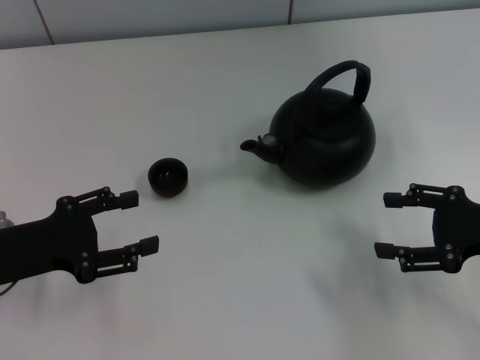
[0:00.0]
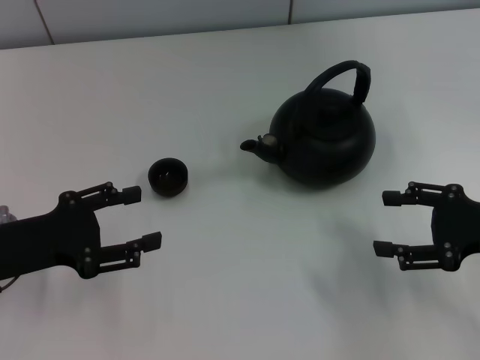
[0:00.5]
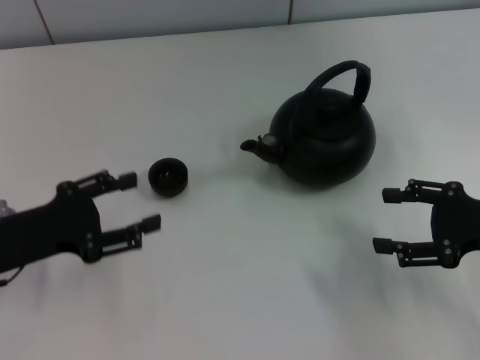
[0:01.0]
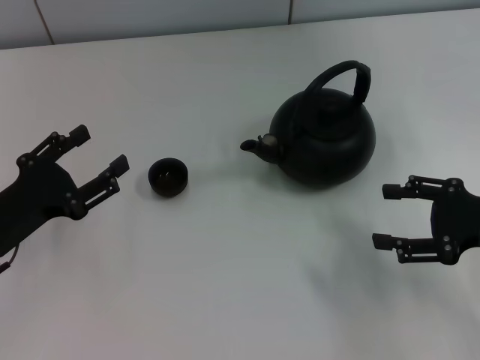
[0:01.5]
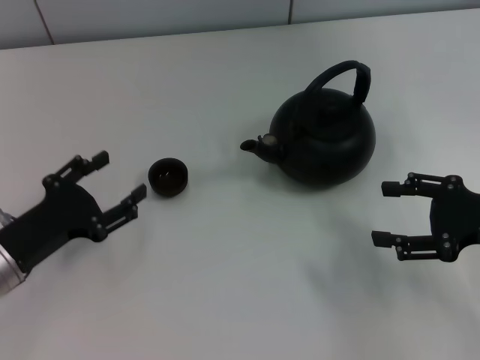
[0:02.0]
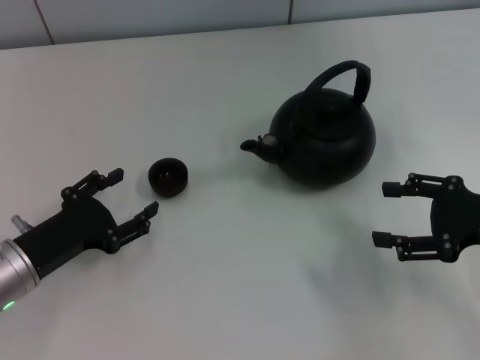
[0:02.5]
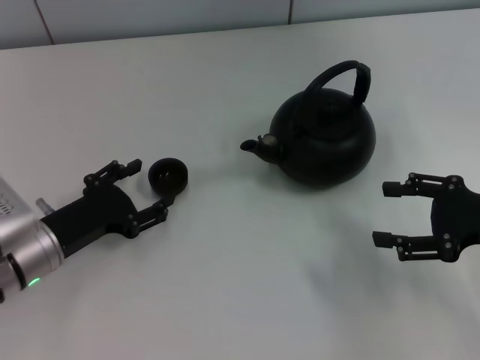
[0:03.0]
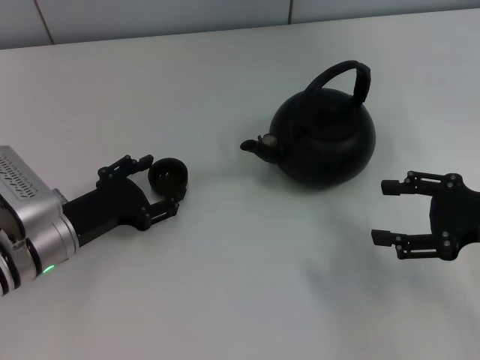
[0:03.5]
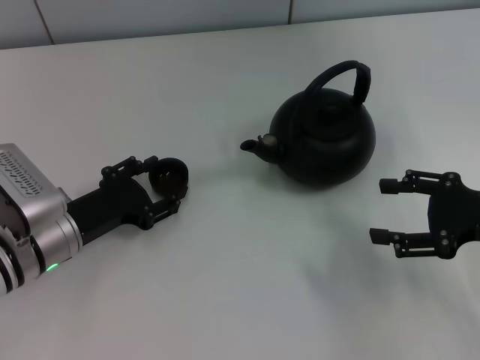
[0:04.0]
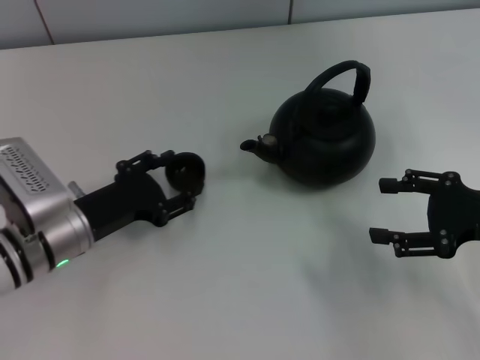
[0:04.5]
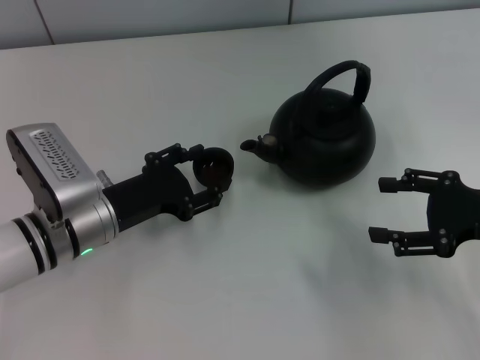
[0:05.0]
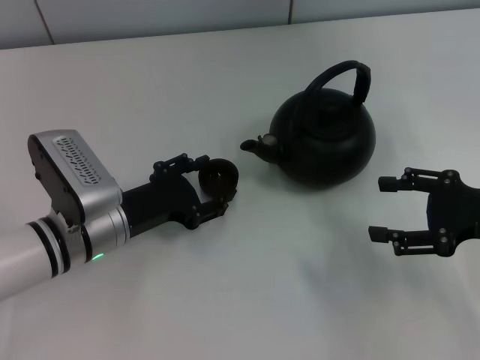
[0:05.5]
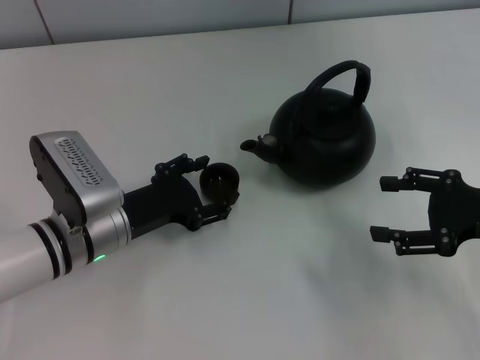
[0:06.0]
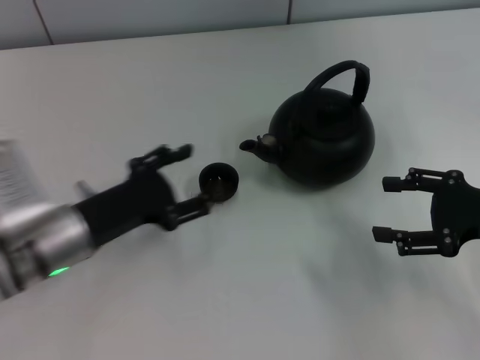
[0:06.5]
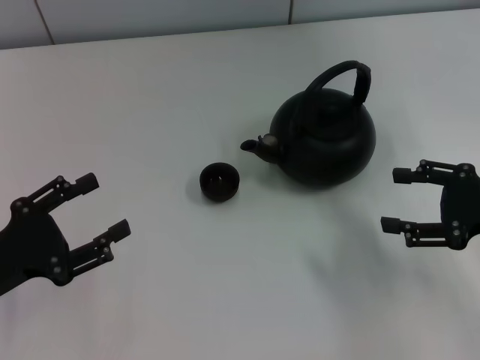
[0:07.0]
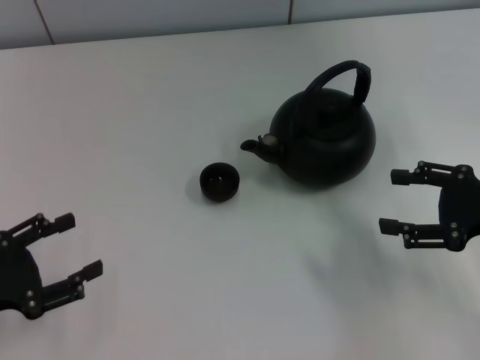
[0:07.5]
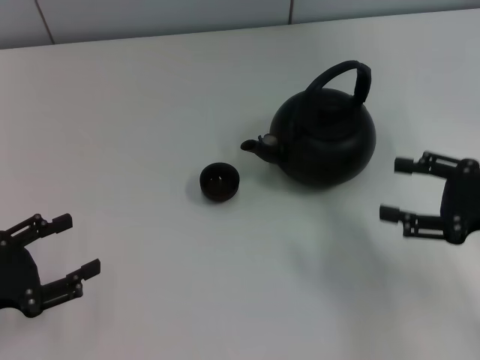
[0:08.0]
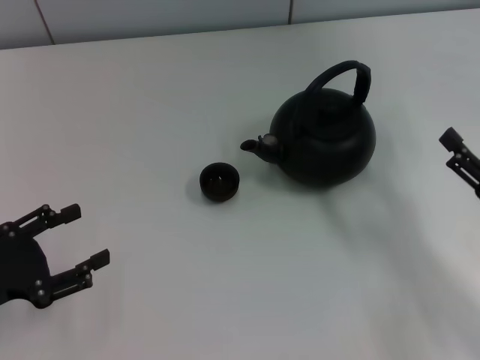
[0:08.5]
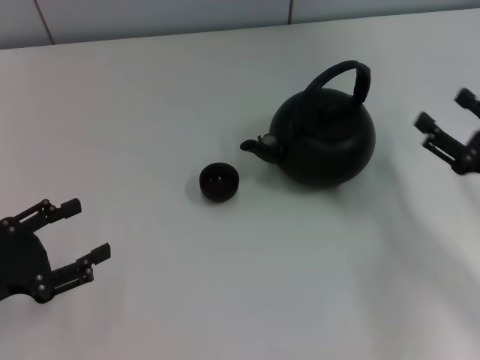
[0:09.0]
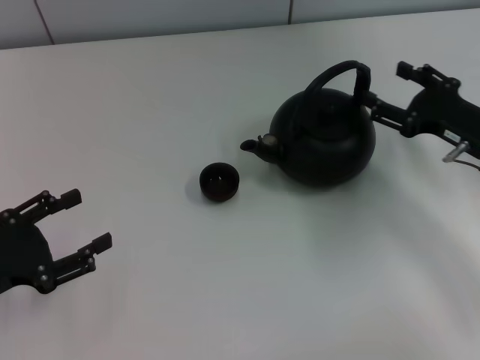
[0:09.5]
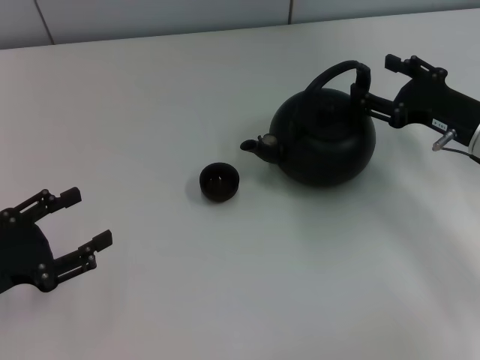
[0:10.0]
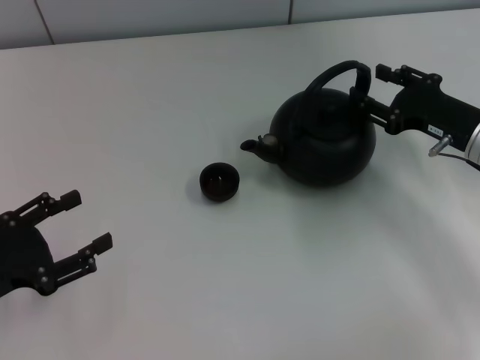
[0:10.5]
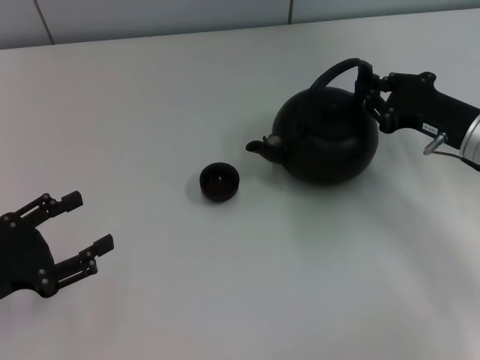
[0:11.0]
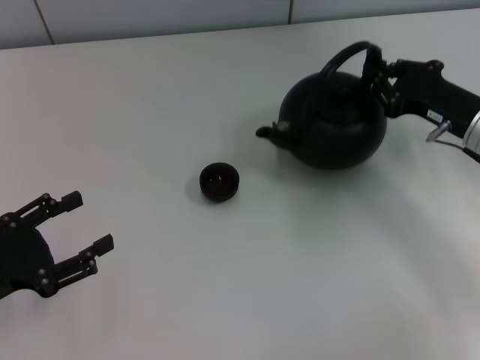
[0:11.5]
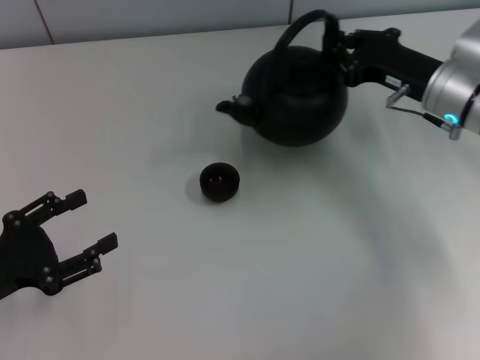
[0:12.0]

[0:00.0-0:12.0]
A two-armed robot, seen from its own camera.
Task of the whole recording: Grasp the handle of the teapot with one hand and pour tea into the teacup.
Step, 0:00.0 to 0:04.5: Pick up the teacup with the left gripper.
Step, 0:05.0 to 0:06.0: Place the teacup in the center of view with the left gripper.
Step, 0:07.0 to 0:11.0: Pick up the teapot with the right gripper.
0:00.0 to 0:02.0: The left gripper shifts by roughly 5 cm.
0:02.0 to 0:04.0: The left gripper shifts by about 5 cm.
0:04.0 to 0:06.0: There are only small adjustments of the grippers.
0:06.0 to 0:08.0: The left gripper goes approximately 20 cm to the left and backward.
0:08.0 to 0:10.0: The right gripper moves forward, about 10 cm.
0:10.0 to 0:12.0: The right gripper ends up about 5 cm from where it was, and closes its fingers.

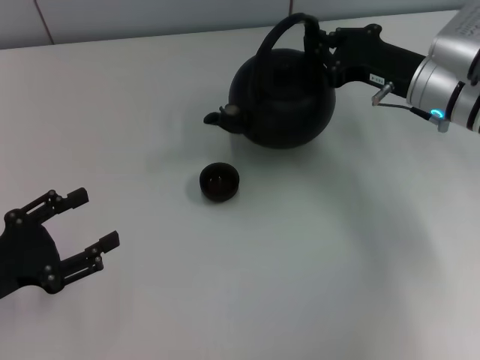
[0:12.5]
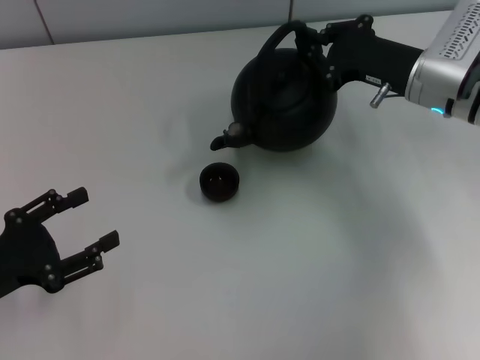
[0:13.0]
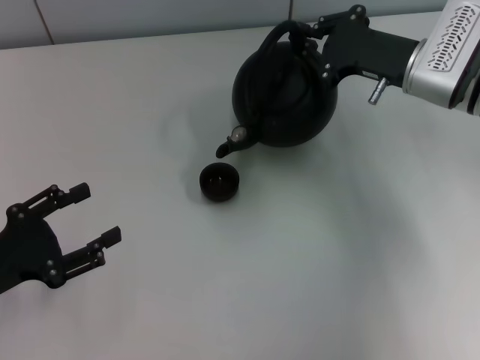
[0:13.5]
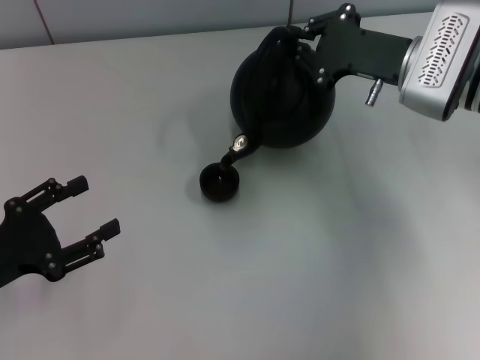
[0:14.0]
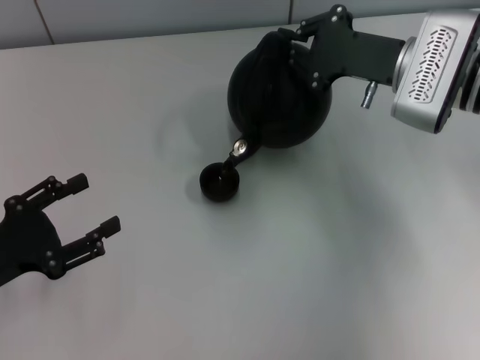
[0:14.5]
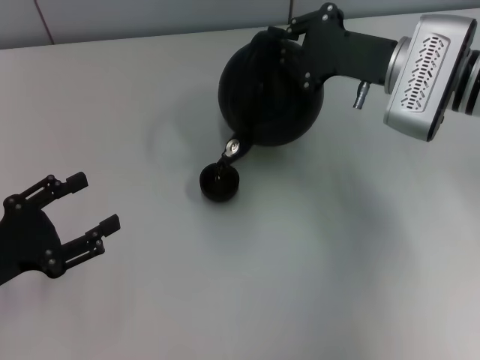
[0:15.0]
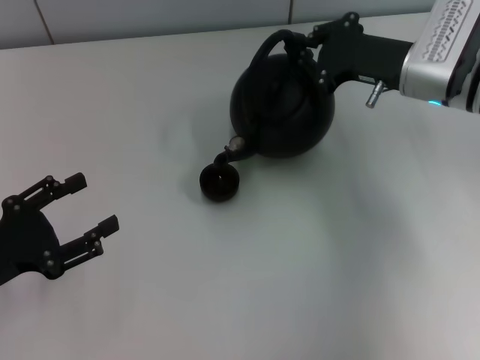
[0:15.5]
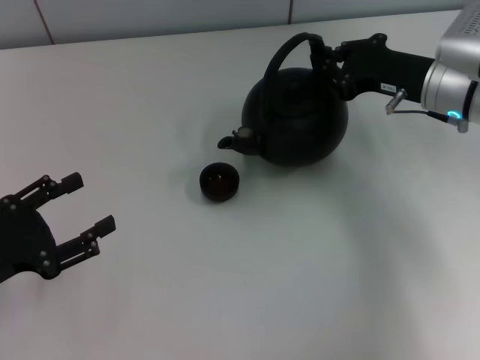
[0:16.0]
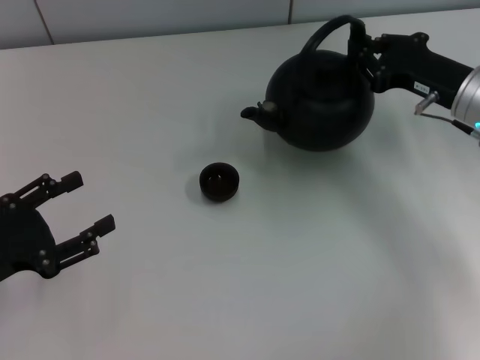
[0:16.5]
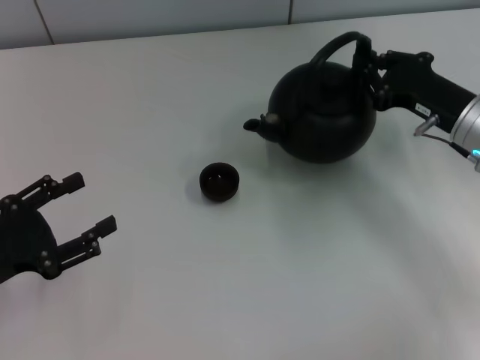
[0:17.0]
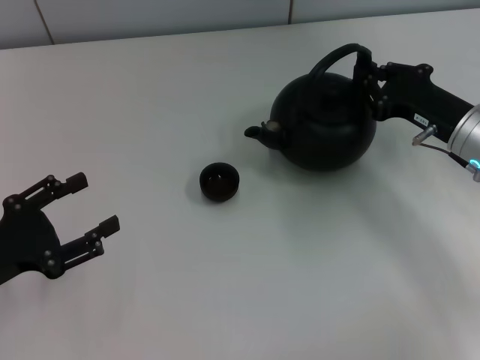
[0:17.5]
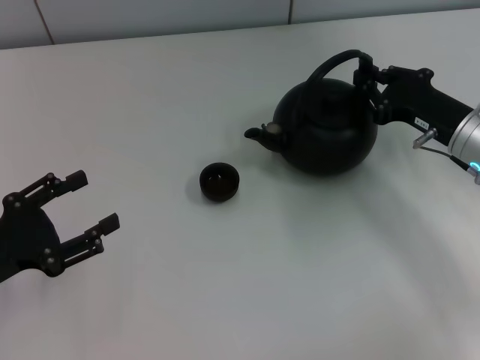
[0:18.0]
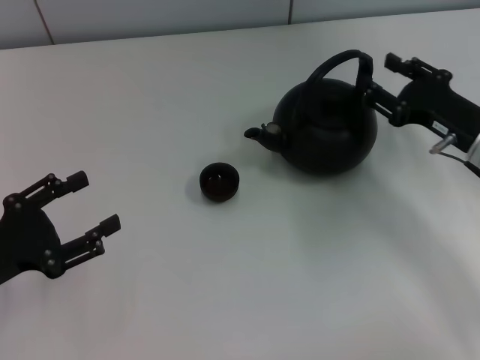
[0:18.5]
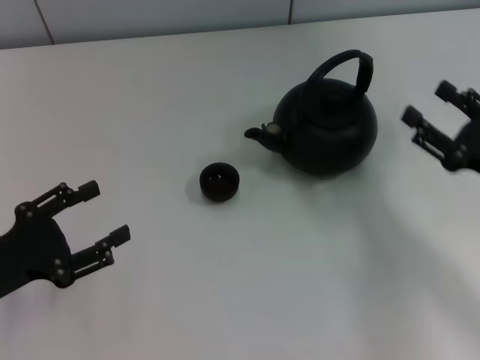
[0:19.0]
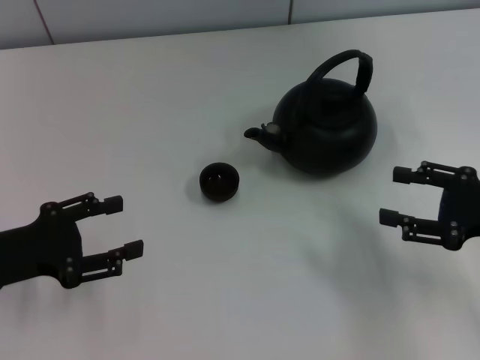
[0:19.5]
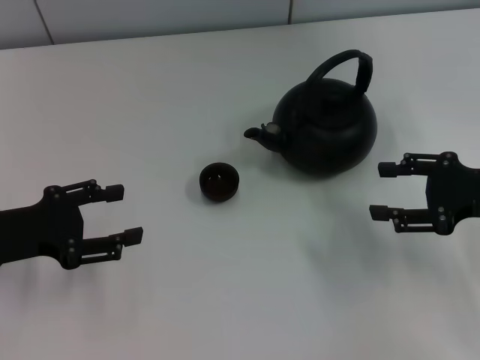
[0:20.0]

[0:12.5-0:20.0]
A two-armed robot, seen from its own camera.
Task of the whole recording: Grasp the handle of the teapot with one hand and pour tea into the teacup.
Step, 0:16.0 to 0:18.5: Put down the teapot with the right gripper.
0:14.5 to 0:16.5: The right gripper shifts about 5 cm to the right.
0:16.5 to 0:18.0: The grippers make only small movements.
0:18.0 to 0:20.0: The left gripper is displaced forward by about 5 cm, while the right gripper heads backward, covering about 5 cm, and opens its fingers.

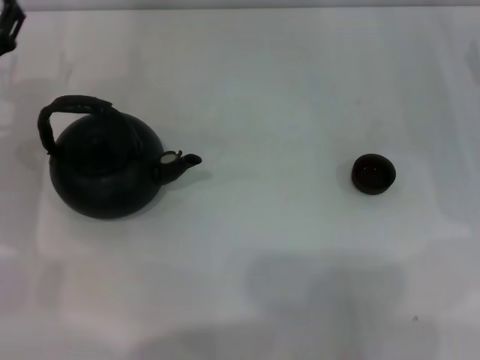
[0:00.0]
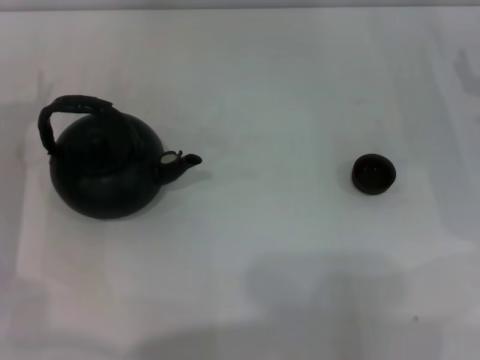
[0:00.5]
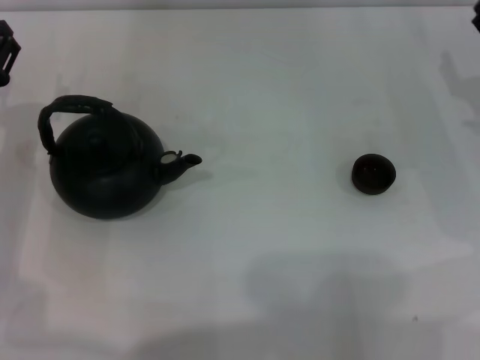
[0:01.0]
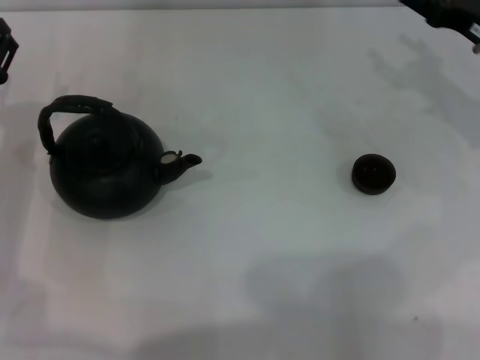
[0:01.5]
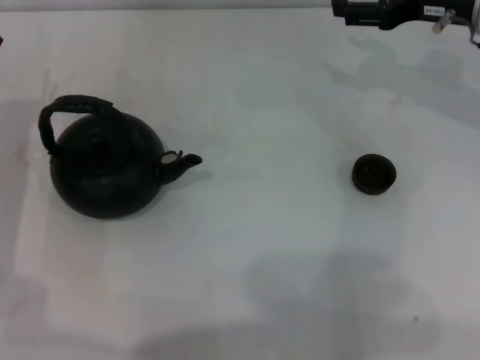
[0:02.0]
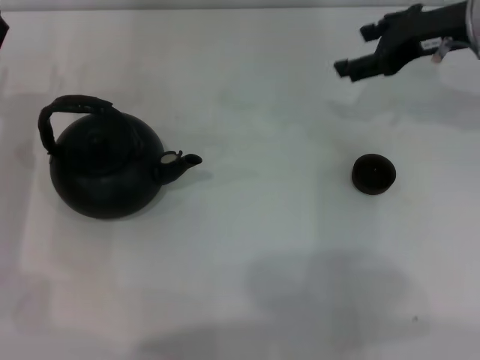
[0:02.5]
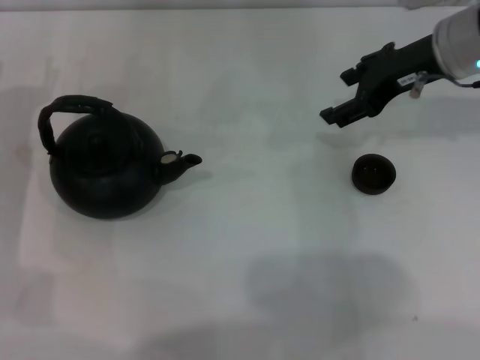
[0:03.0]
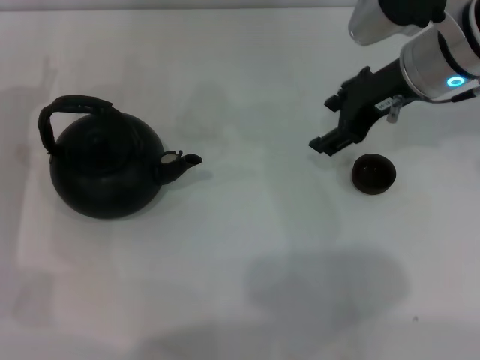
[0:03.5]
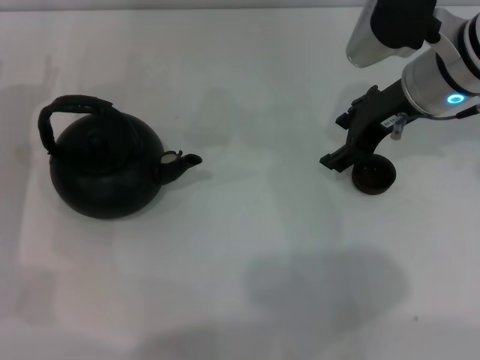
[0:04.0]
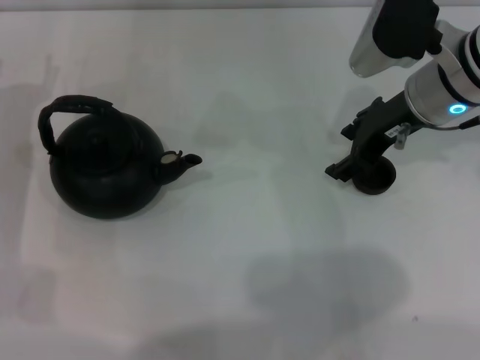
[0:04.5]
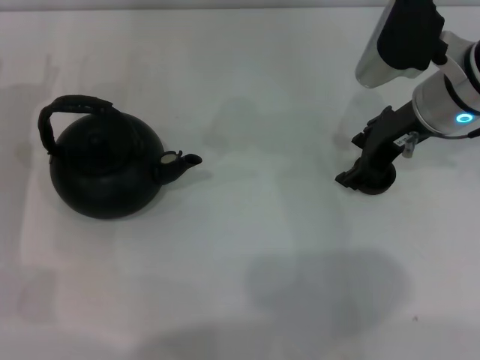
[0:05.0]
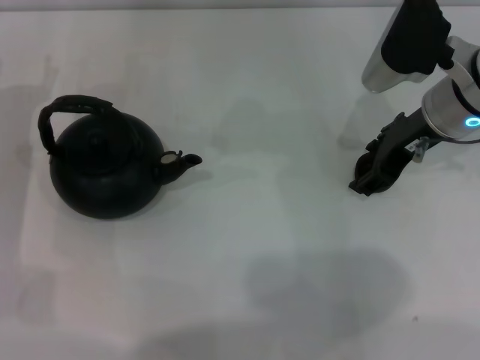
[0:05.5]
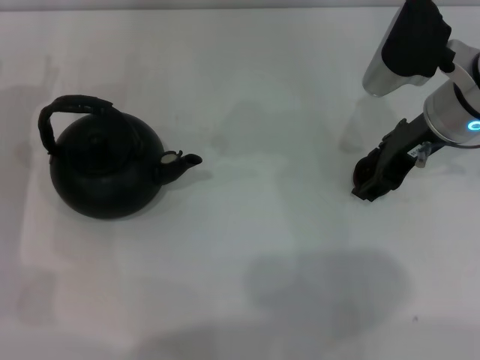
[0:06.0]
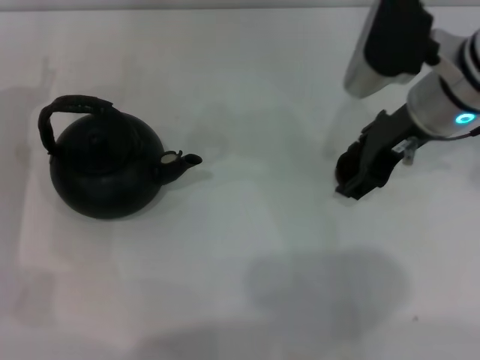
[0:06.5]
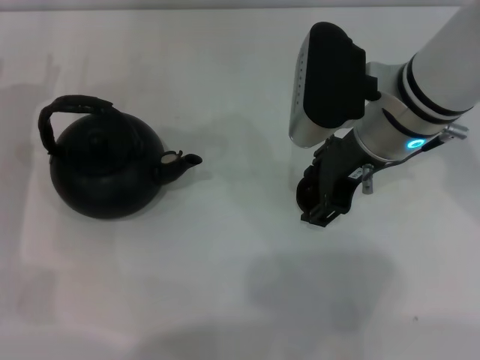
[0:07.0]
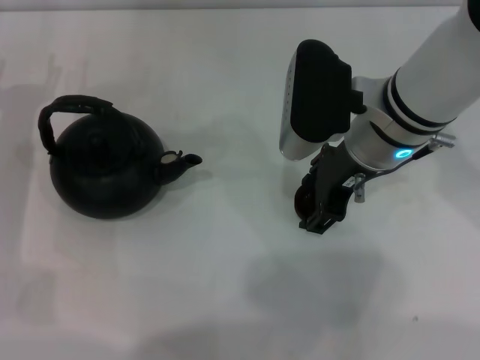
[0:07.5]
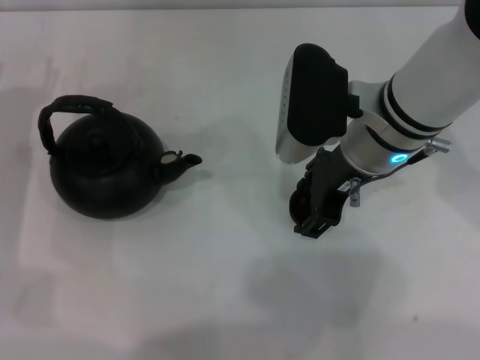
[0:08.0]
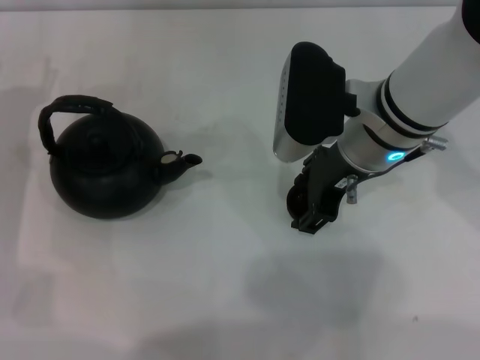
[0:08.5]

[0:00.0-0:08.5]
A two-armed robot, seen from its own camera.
Task of the whole recording: Grasp the handle of the teapot with one hand and pour tea into the teacup.
Step, 0:00.0 to 0:06.5: Pick up the teacup with the right gripper.
0:00.0 to 0:02.0: The right gripper goes some 15 cm upward, to the left and forward.
0:02.0 to 0:04.0: The right gripper shifts some 5 cm to the left.
0:04.0 to 0:06.5: The grippers move only a little.
0:06.5 to 0:08.5: The right gripper heads to the left, covering approximately 5 cm.
